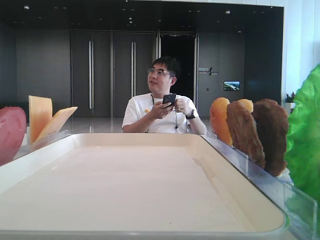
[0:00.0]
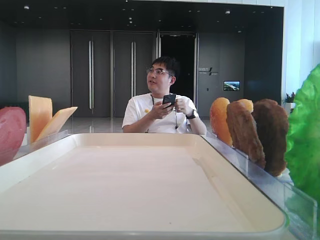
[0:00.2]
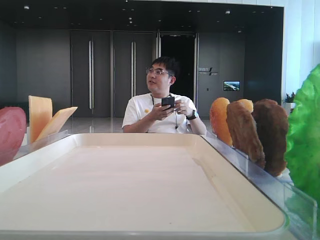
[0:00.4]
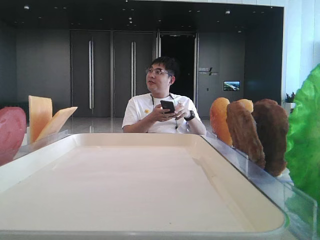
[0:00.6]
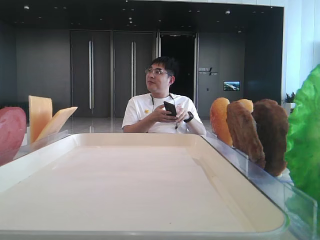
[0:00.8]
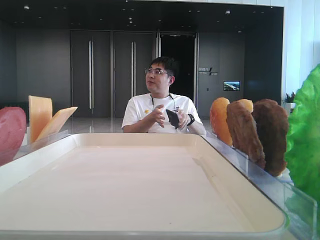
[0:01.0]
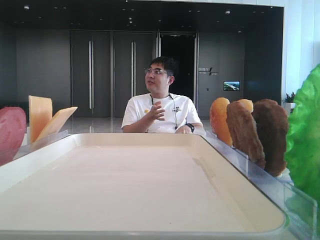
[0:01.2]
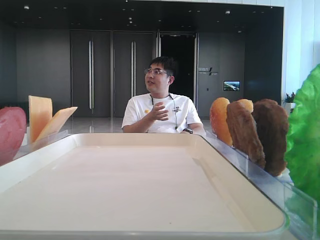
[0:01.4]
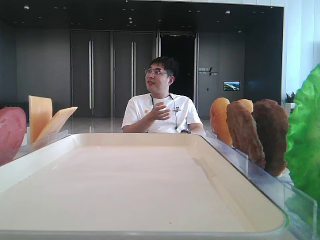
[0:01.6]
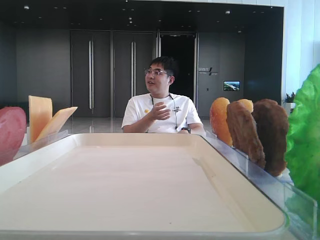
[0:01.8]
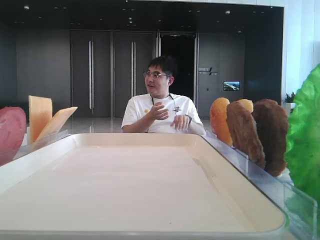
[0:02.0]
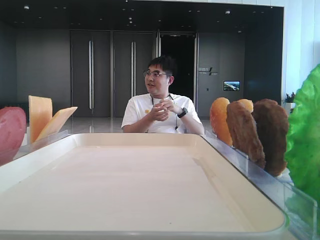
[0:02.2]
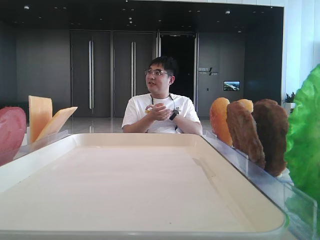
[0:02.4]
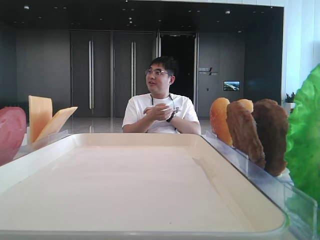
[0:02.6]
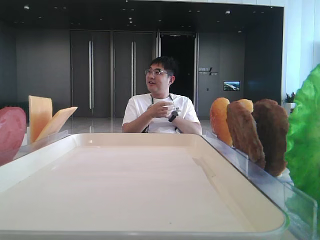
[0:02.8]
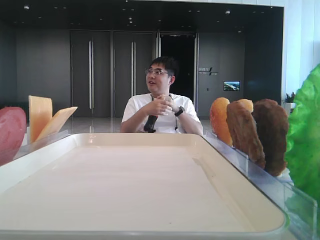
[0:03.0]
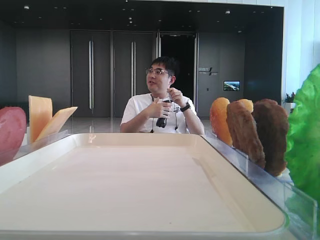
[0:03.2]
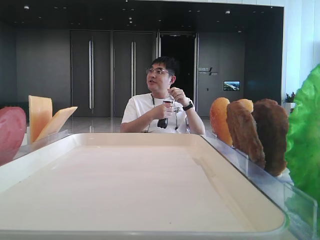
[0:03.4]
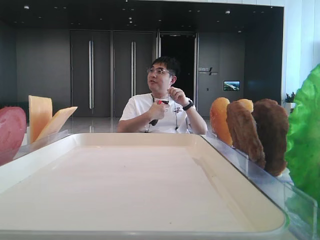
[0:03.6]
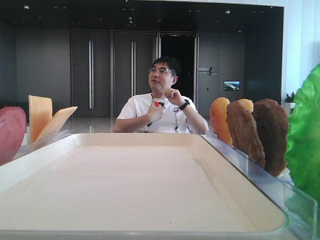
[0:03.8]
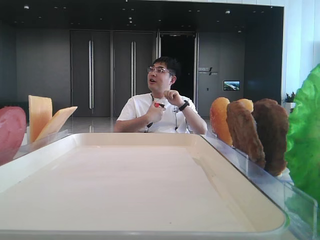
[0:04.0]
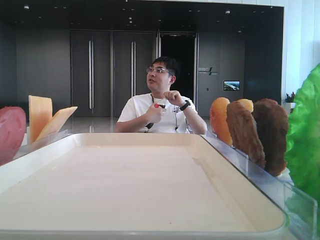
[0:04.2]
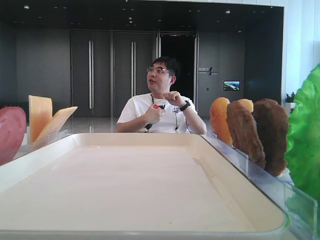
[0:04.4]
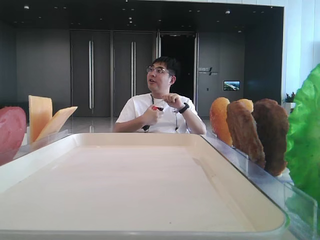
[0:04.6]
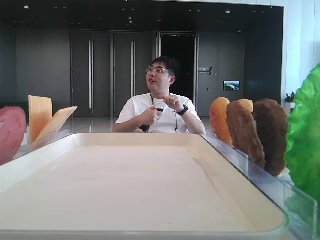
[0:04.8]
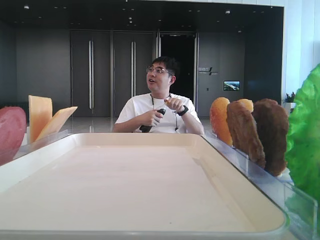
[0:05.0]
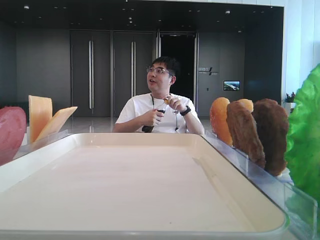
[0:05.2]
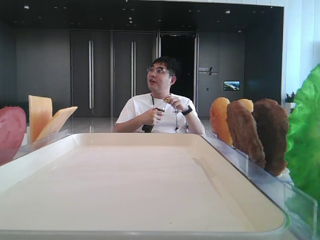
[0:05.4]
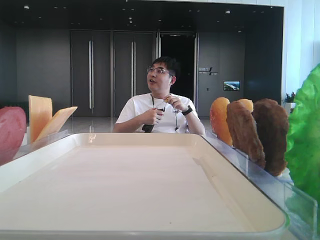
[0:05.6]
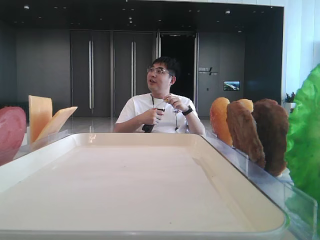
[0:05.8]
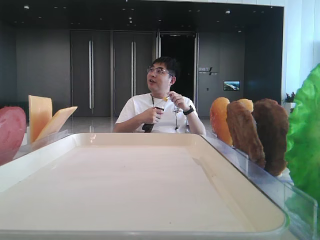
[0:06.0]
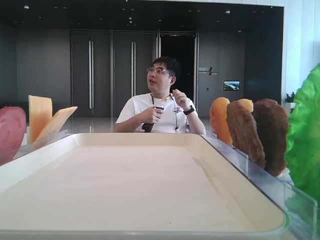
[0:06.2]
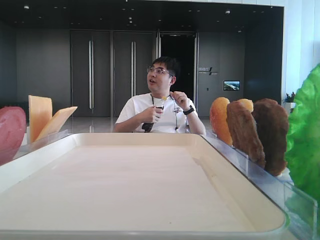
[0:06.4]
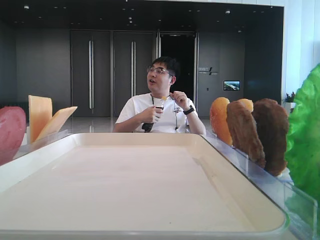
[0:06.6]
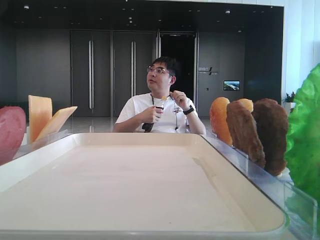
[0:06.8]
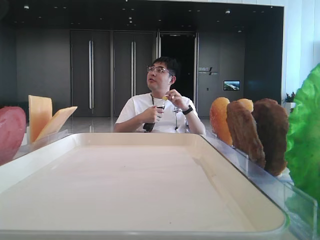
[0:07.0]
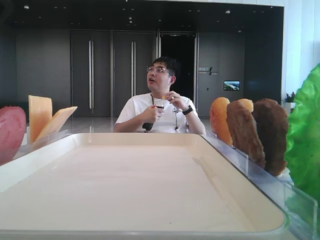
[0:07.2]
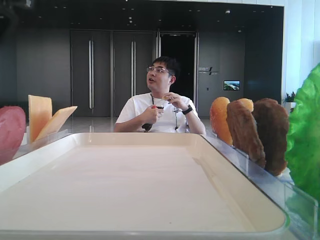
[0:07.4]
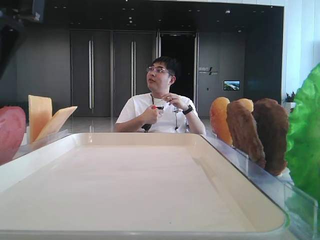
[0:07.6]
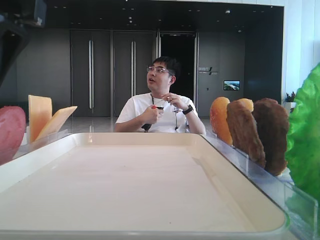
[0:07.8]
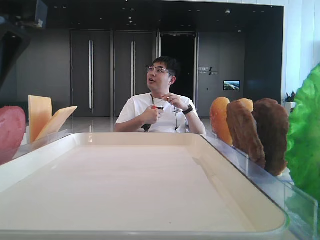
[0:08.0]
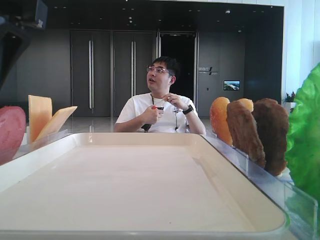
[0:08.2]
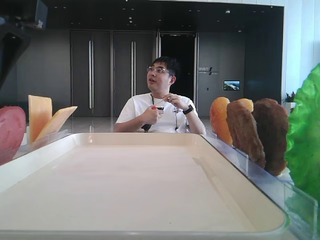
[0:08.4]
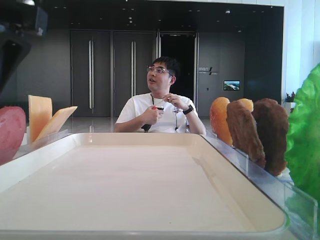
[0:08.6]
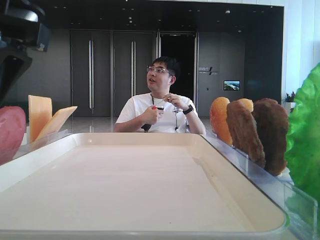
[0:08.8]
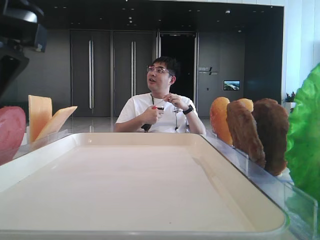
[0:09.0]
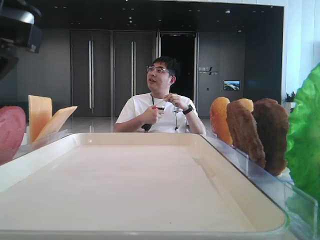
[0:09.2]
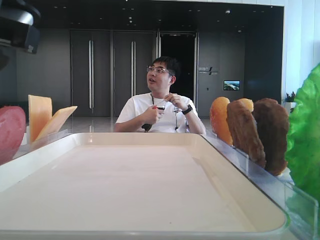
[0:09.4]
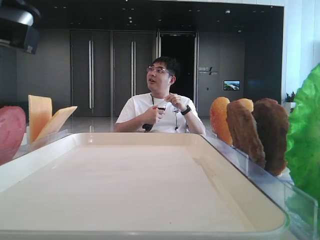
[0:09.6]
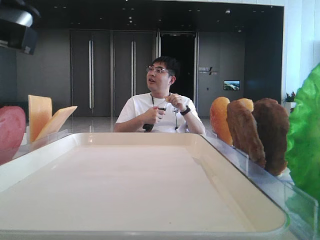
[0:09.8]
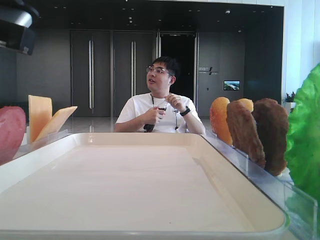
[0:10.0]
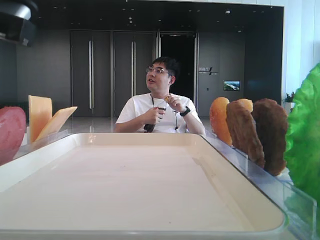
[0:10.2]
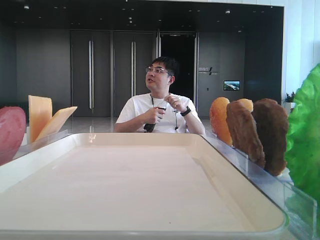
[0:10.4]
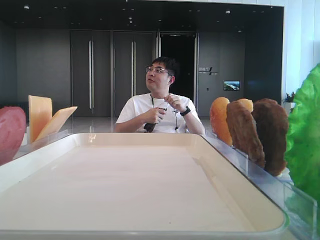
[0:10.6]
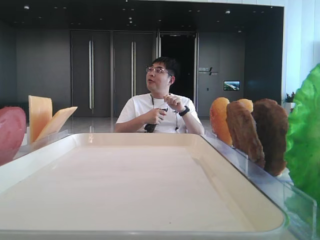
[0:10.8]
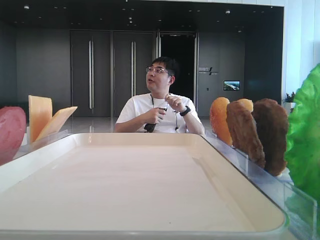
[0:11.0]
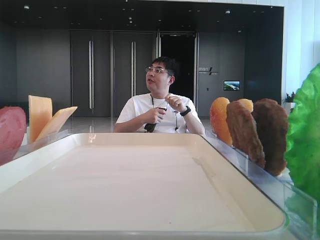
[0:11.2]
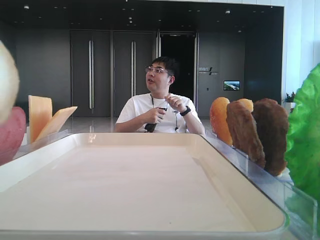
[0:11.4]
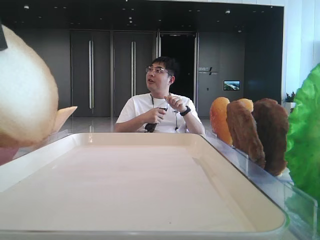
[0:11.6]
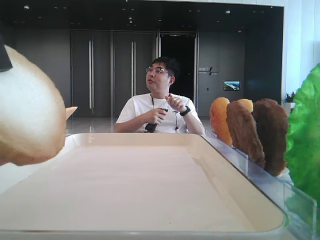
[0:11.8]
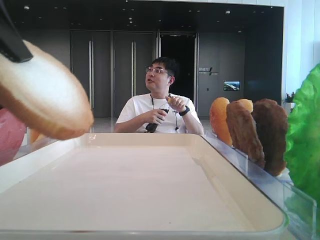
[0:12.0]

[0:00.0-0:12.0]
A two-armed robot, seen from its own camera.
Step, 0:00.0 to 0:09.8: Pick up the bottom bread with the left hand.
0:01.6 to 0:03.0: There are only small adjustments of the grippers.
0:03.0 to 0:04.4: The left gripper moves forward, about 10 cm.
0:04.4 to 0:06.0: The left gripper travels to the right by about 10 cm.
0:06.0 to 0:07.6: The left gripper is displaced forward and to the right by some 10 cm.
0:07.6 to 0:09.0: The grippers make only small movements.
0:09.0 to 0:10.4: The left gripper closes its fingers.
0:10.4 to 0:12.0: The left gripper reaches approximately 5 cm upward, then returns.

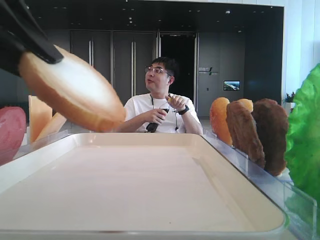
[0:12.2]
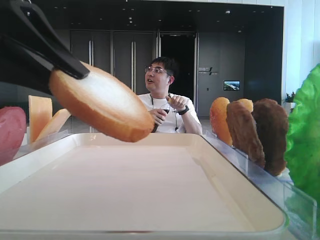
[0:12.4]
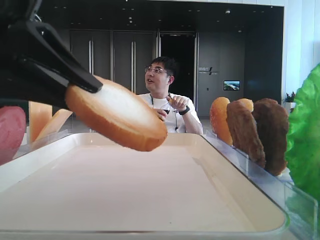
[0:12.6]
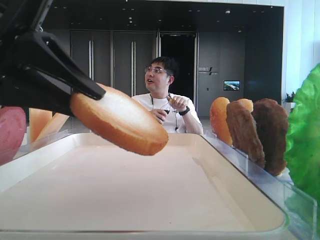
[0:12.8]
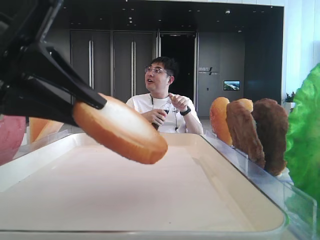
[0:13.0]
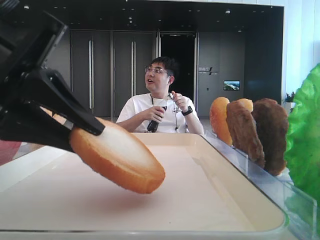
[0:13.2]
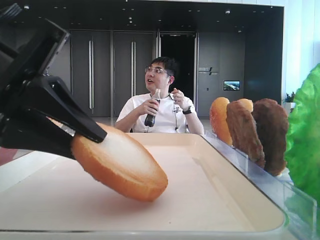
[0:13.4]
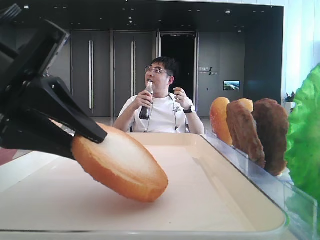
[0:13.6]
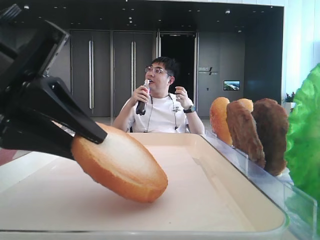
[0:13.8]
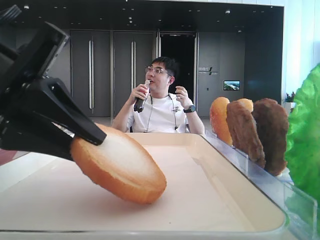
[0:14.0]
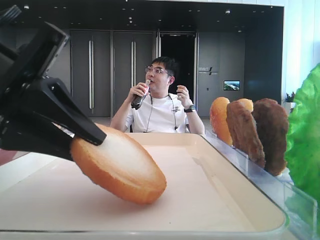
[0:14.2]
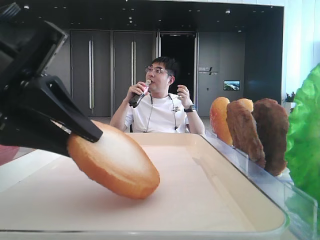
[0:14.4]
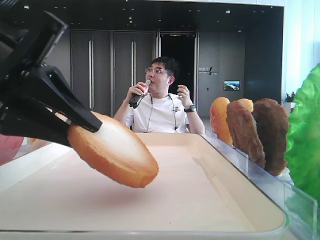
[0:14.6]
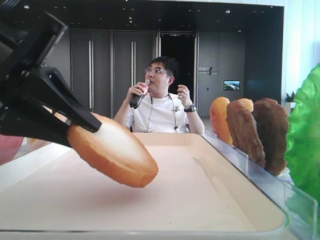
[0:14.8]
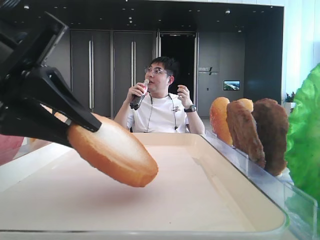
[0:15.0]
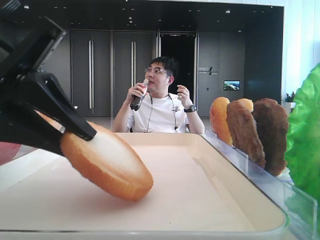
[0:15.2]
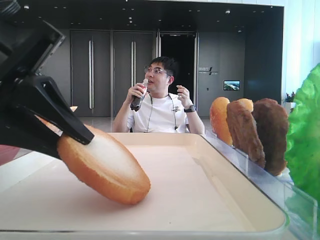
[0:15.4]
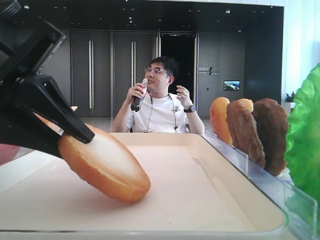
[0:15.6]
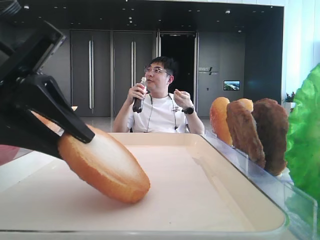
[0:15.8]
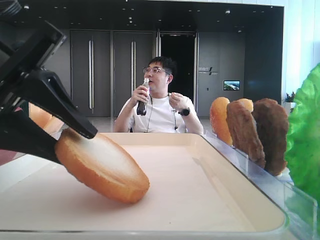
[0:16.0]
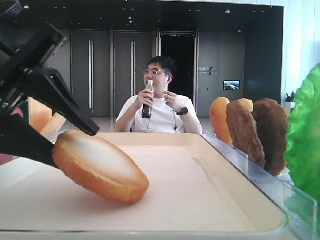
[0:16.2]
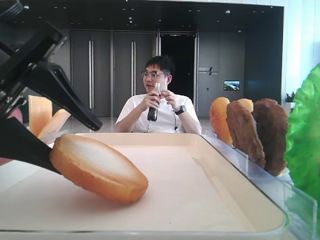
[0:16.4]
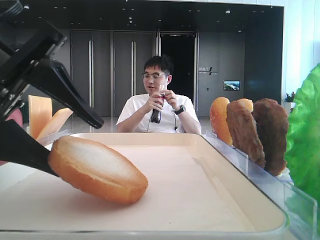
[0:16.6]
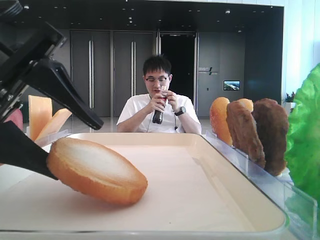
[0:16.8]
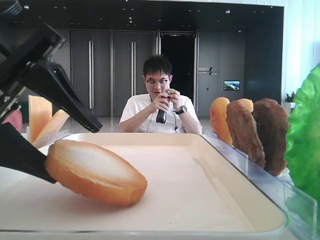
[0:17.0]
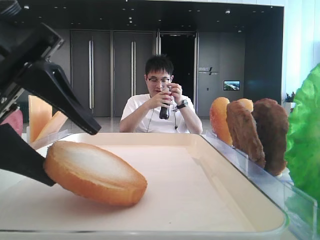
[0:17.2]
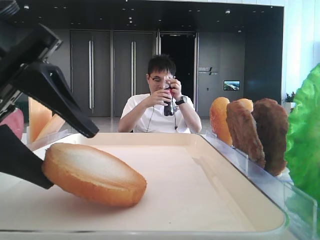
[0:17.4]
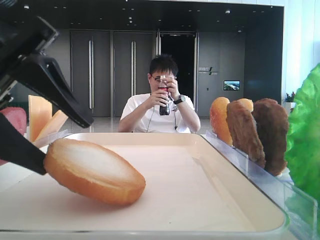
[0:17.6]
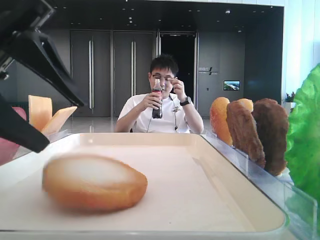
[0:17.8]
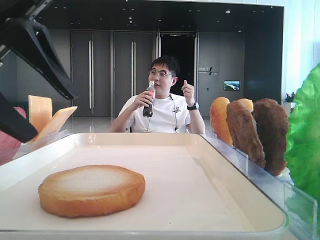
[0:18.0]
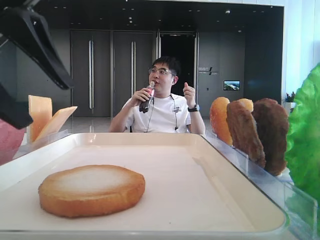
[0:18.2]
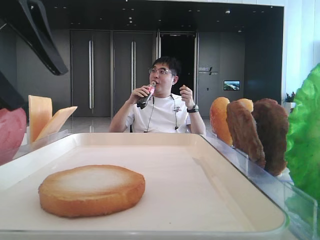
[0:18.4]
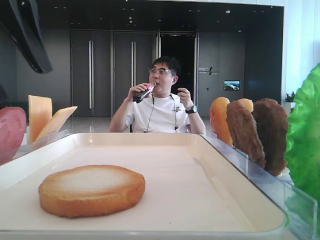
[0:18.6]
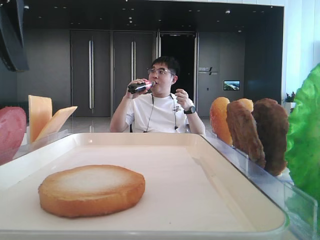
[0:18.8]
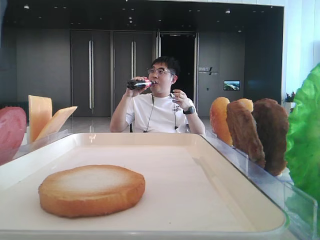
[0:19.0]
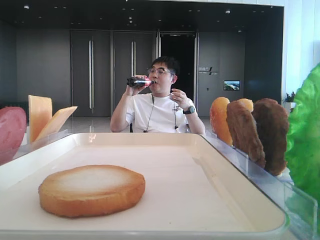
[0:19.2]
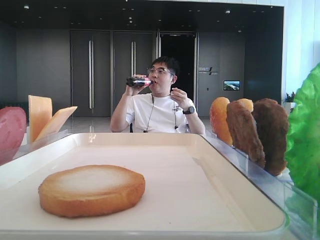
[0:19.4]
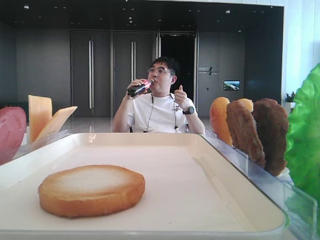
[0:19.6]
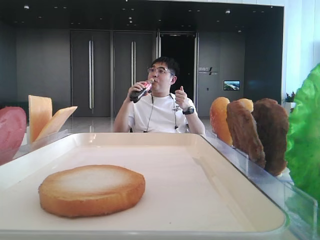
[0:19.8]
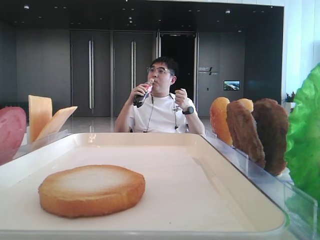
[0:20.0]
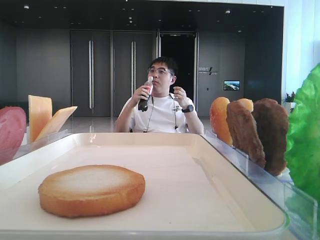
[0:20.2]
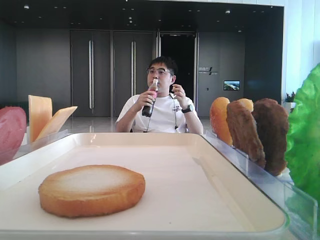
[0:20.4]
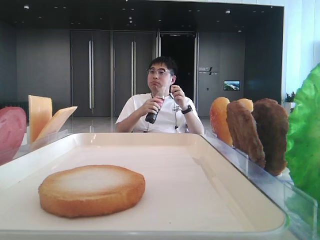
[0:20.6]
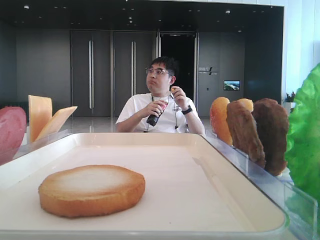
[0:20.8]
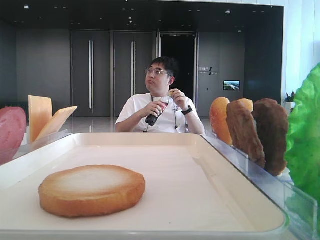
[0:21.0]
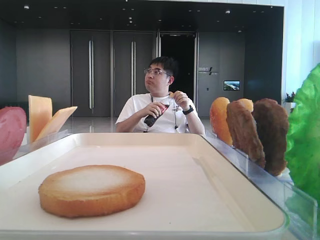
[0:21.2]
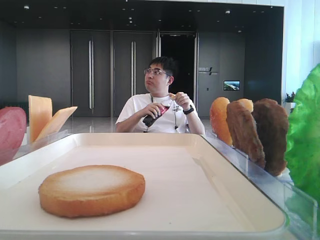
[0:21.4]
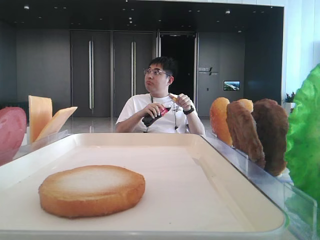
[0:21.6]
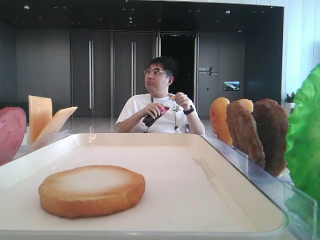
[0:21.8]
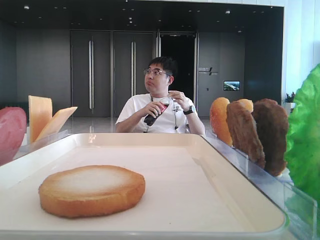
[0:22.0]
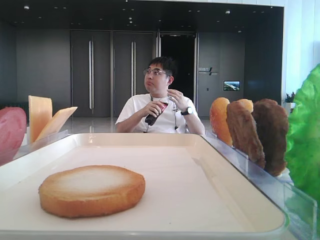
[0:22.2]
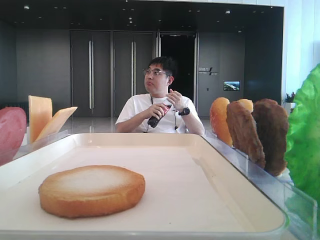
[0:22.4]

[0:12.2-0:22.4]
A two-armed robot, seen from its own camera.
Step, 0:12.2 to 0:17.6: Place the bread on the tray with the left hand.
0:12.2 to 0:13.6: The left gripper shifts some 10 cm downward.
0:13.6 to 0:15.2: Both grippers stay about where they are.
0:15.2 to 0:16.6: The left gripper opens.
0:16.6 to 0:18.0: The grippers stay close to where they were, moving slightly.
0:18.0 to 0:19.4: The left gripper goes roughly 10 cm upward.
0:19.4 to 0:21.0: The left gripper goes some 10 cm to the left and upward.
0:21.0 to 0:22.4: The left gripper shifts approximately 20 cm backward.
